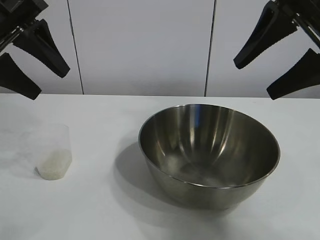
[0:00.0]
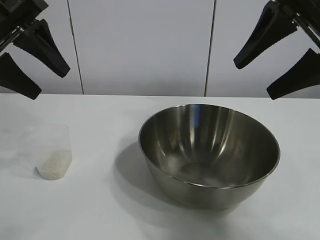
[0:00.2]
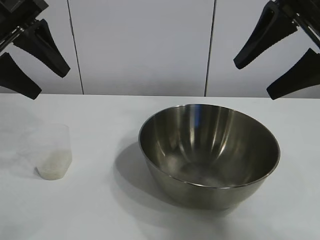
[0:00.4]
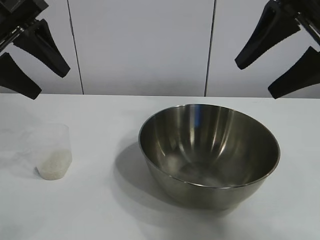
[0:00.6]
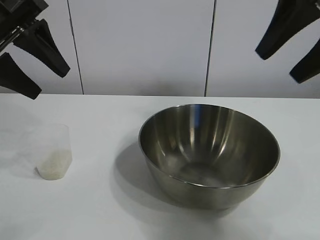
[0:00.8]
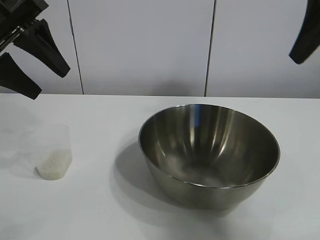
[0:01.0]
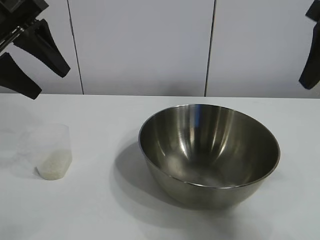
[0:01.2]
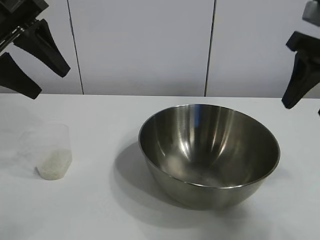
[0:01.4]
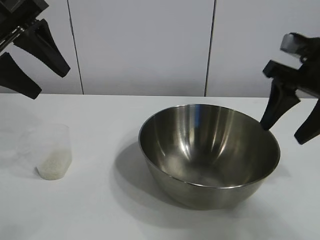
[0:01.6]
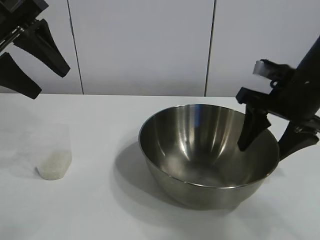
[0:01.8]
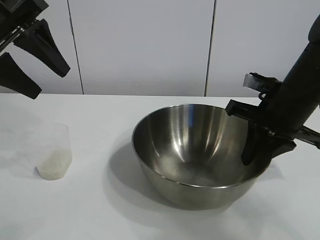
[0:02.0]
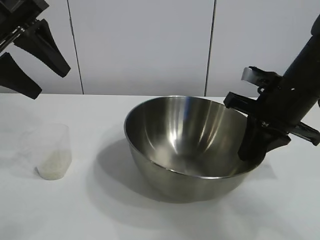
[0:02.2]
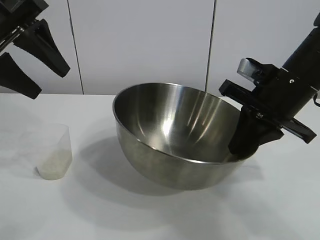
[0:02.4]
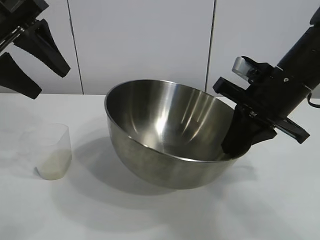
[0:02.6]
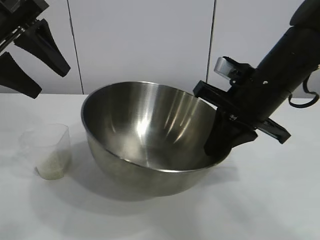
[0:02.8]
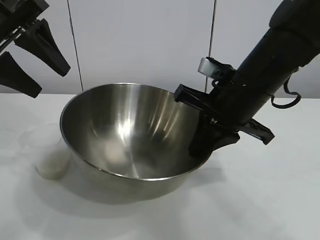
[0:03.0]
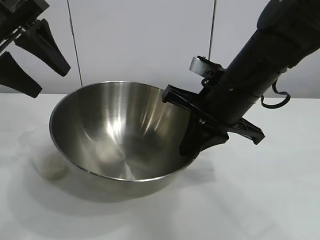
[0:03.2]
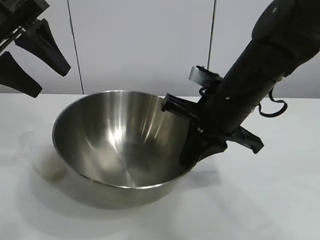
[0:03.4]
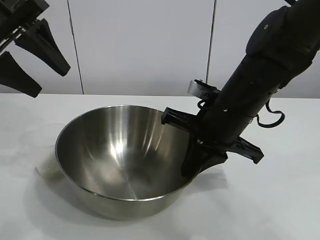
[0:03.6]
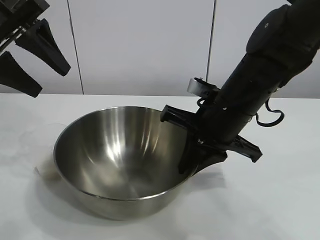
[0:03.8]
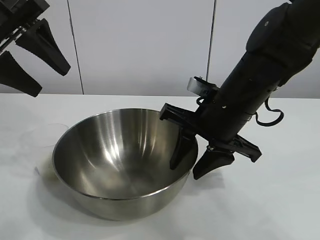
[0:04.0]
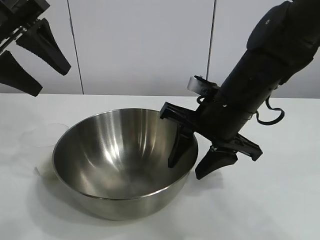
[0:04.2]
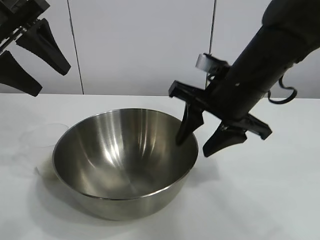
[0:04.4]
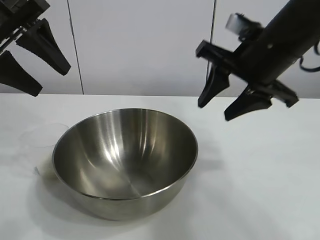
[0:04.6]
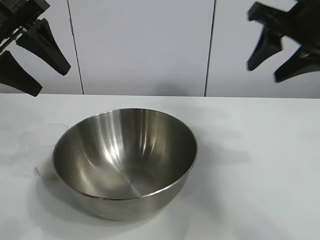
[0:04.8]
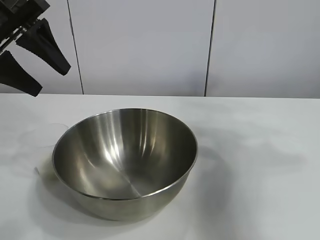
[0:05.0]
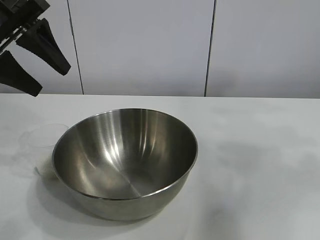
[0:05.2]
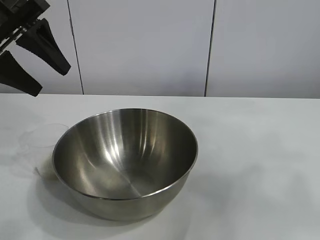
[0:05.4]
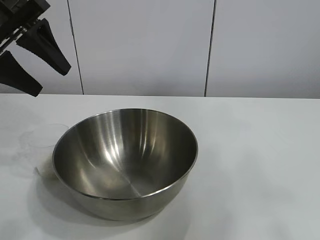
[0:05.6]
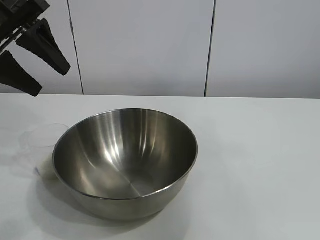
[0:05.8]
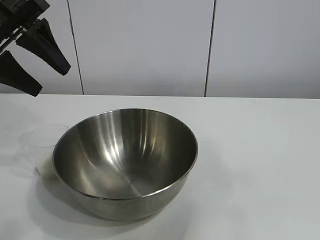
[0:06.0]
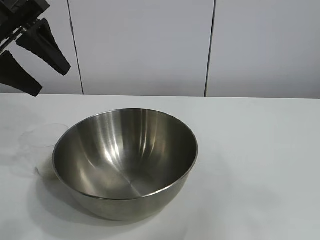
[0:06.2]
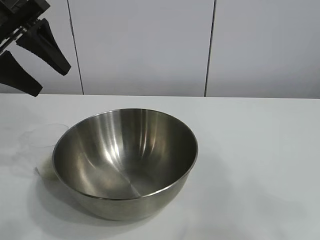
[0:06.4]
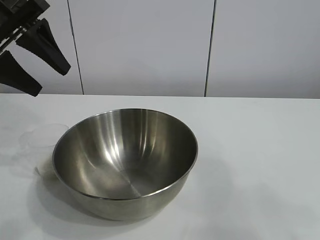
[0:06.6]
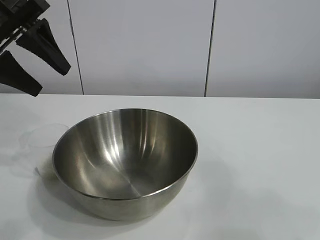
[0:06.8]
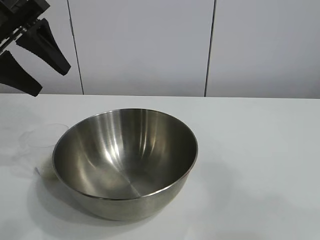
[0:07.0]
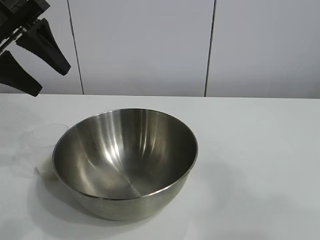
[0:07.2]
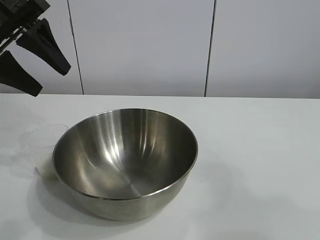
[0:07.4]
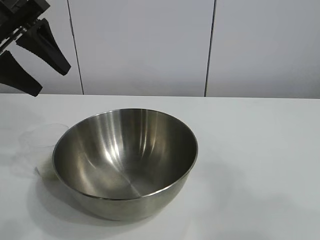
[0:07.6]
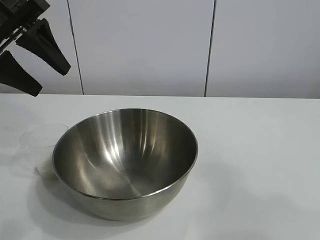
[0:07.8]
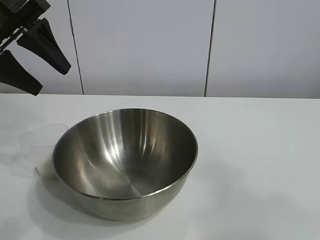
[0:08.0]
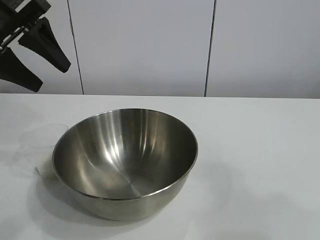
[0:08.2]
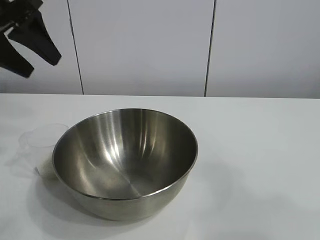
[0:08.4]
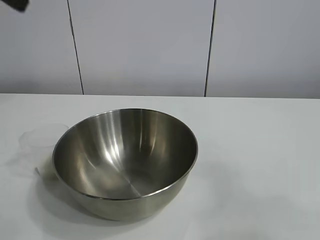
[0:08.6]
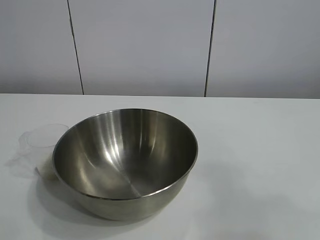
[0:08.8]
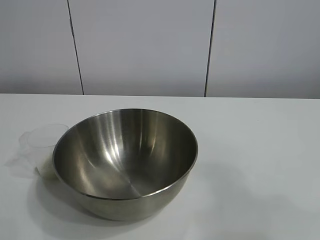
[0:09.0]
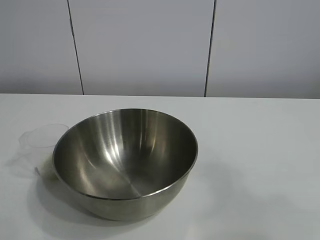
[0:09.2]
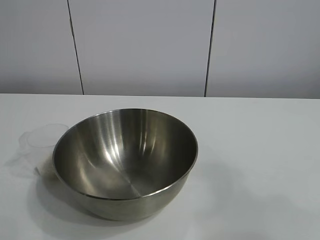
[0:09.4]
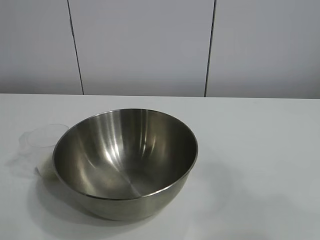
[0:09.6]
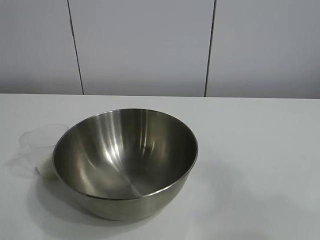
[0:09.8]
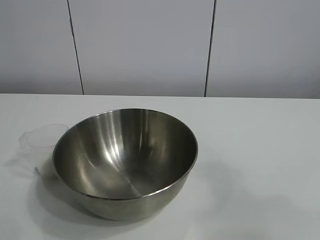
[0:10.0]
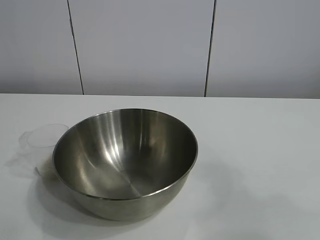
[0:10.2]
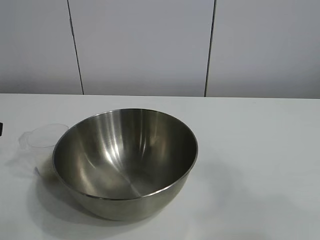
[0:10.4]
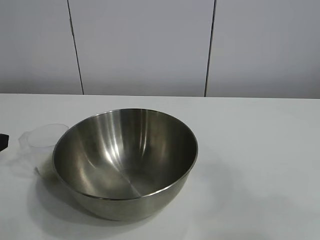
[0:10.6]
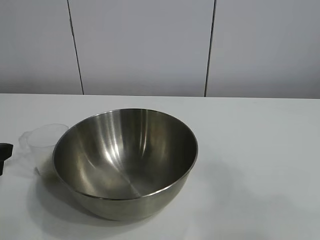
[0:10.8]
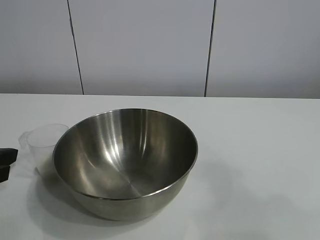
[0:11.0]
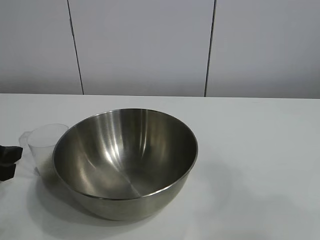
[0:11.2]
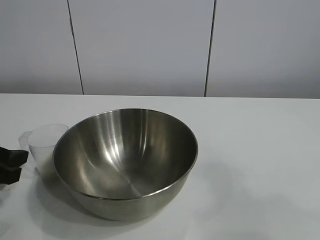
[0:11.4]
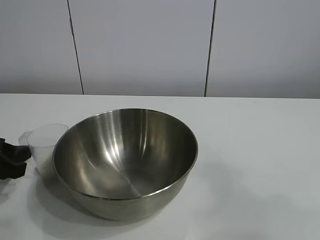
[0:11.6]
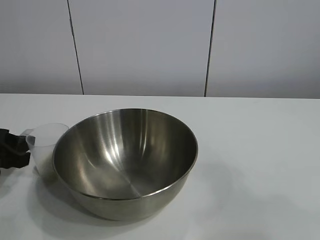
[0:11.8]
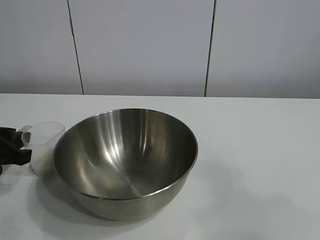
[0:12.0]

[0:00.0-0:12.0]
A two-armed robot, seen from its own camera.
Task of the whole recording: the right gripper grasp the rice container and place it in the center of the table, the left gripper grasp the rice scoop and pour the rice into the rice container.
Step, 0:00.6 to 0:04.2: Move the bowl in the center of view with right gripper.

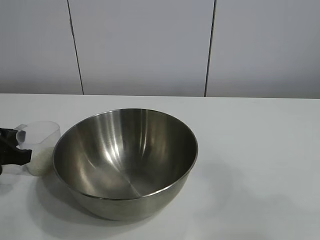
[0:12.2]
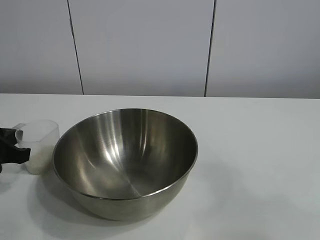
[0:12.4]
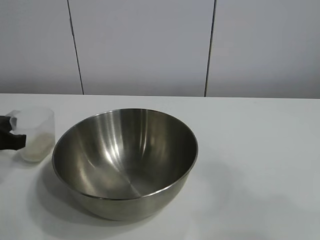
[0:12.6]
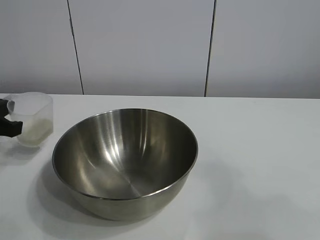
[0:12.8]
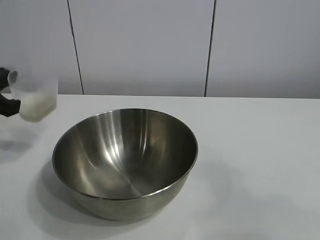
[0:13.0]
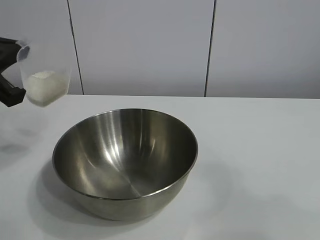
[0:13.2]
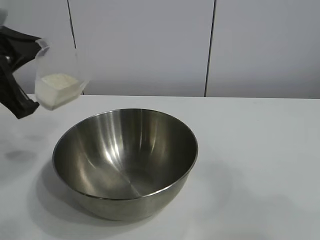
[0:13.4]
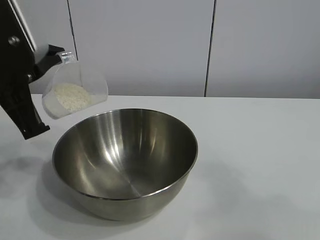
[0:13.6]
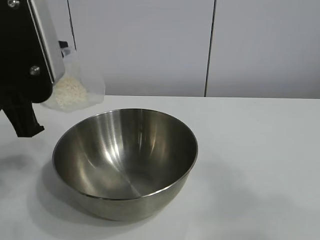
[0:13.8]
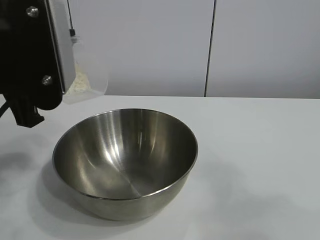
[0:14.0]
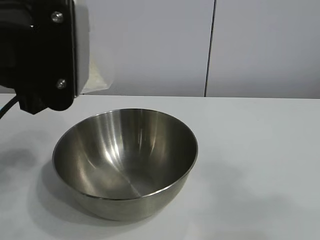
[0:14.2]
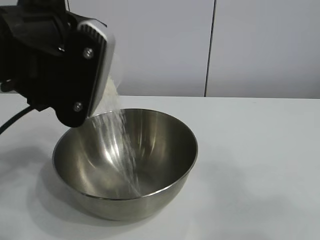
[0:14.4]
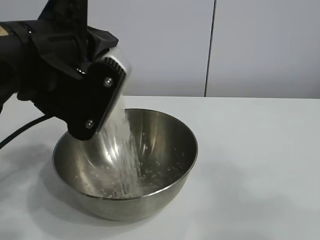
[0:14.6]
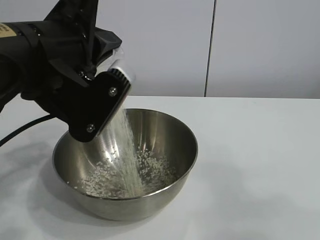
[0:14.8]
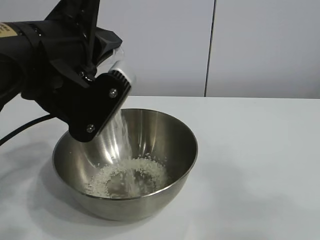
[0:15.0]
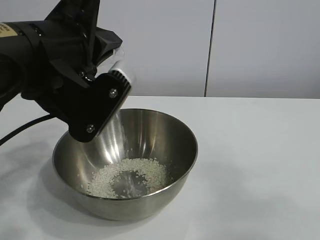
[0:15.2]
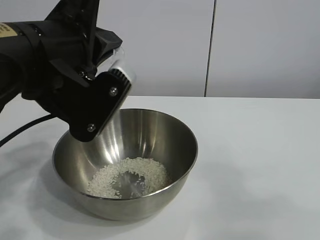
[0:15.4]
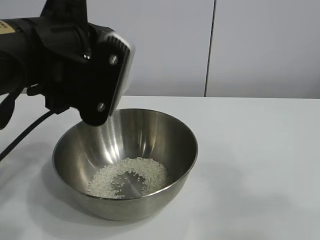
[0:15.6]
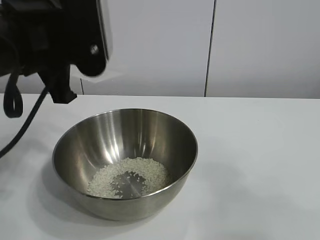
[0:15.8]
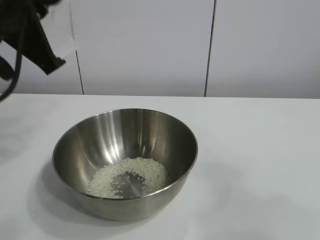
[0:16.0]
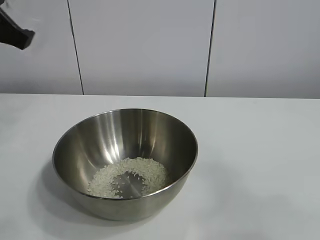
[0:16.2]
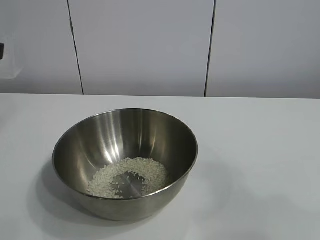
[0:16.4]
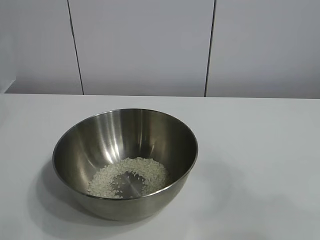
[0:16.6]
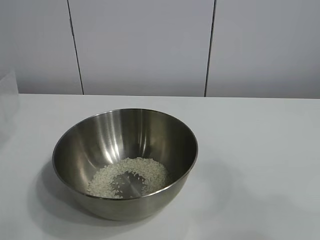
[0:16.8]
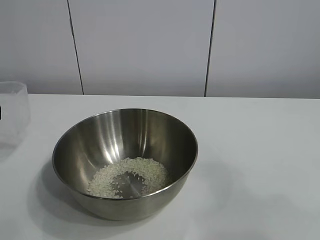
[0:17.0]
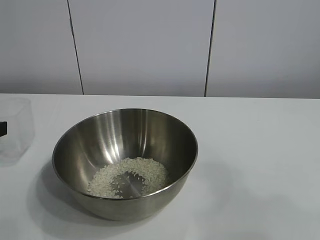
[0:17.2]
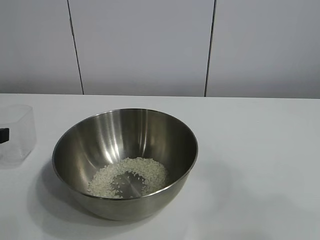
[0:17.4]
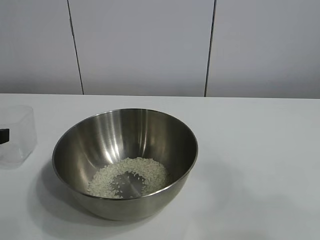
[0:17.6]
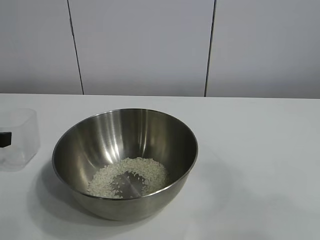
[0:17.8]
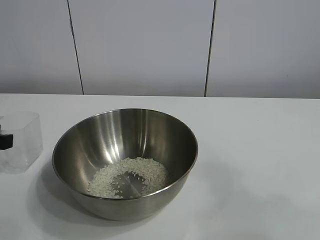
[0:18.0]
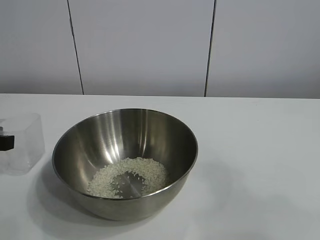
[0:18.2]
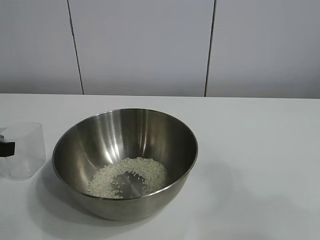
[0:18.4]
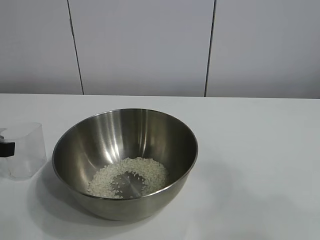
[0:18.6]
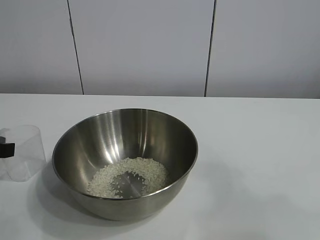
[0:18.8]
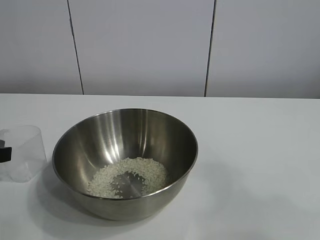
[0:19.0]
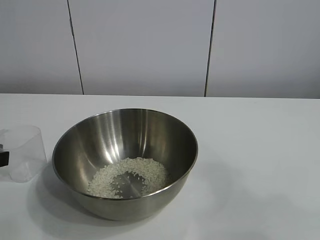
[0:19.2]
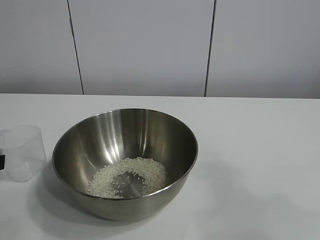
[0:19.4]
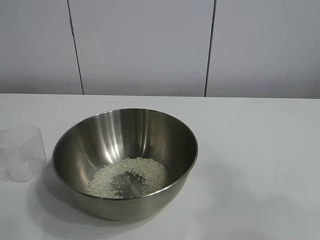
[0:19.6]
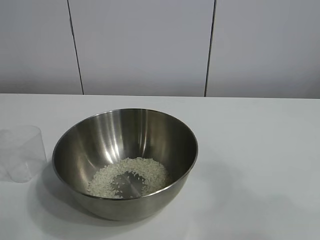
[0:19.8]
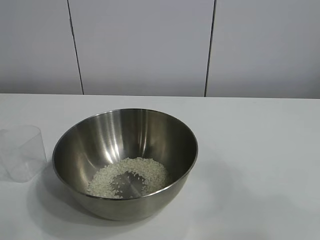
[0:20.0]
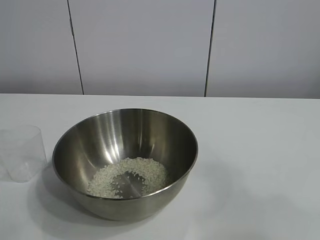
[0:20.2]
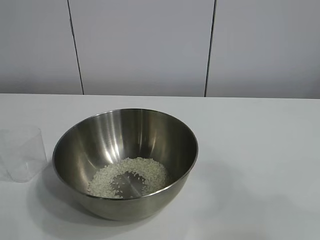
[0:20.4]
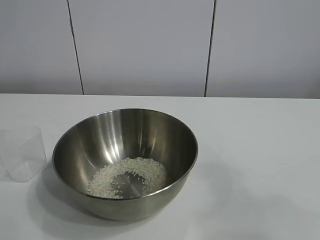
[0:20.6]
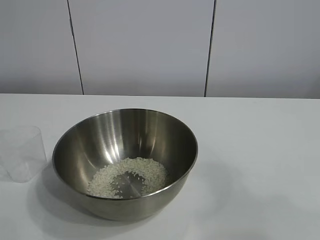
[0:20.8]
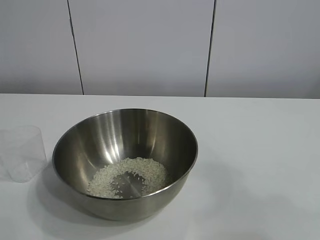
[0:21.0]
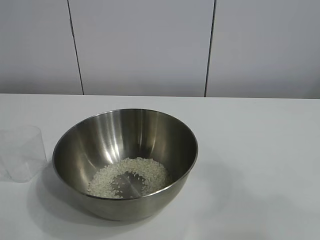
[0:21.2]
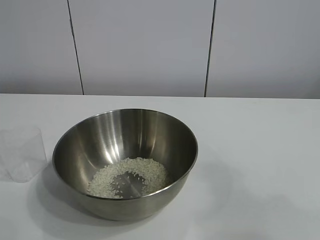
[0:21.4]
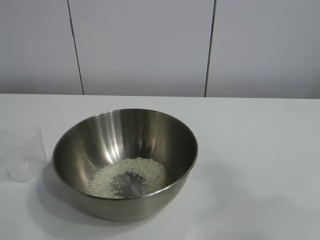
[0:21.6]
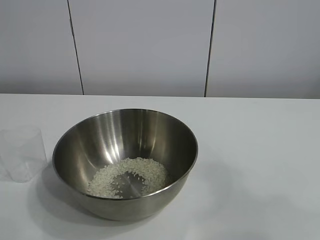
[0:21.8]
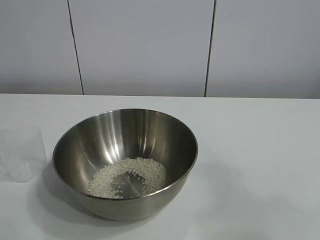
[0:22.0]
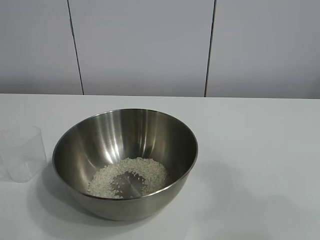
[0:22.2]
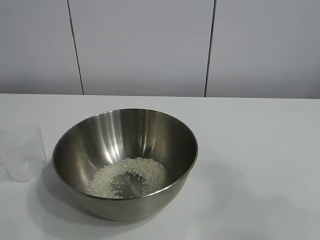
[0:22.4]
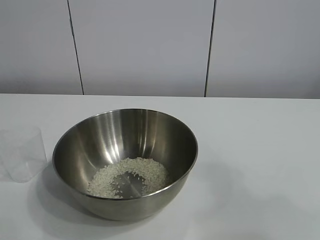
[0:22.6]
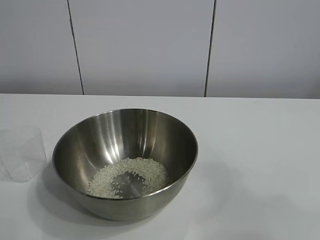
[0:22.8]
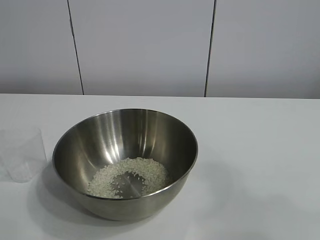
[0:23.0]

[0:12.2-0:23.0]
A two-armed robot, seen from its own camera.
Task of the whole recording: the right gripper grasp the rice container and place it in the center of the table, the left gripper grasp the rice scoop and pour the rice into the rice container.
Step, 0:12.6 to 0:15.2: Pour the rice from the cup into the bowl with the left gripper.
Step, 0:15.6 to 0:19.2: Place the cup on the table with the left gripper.
